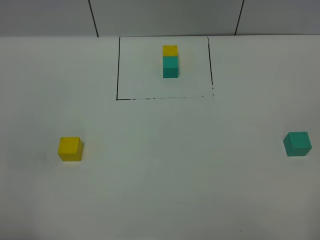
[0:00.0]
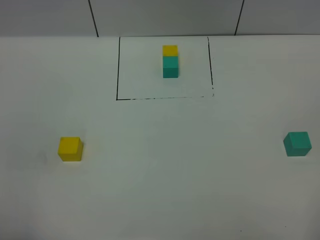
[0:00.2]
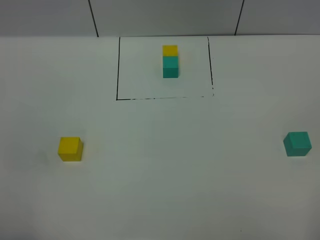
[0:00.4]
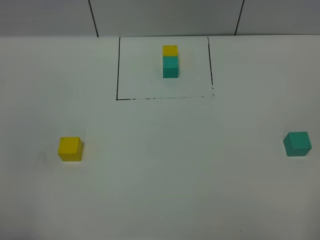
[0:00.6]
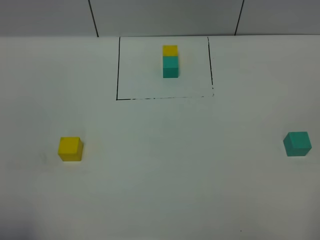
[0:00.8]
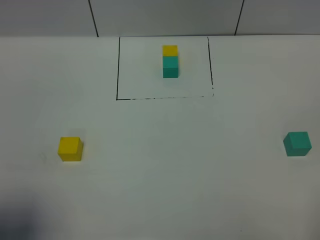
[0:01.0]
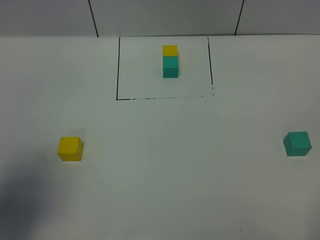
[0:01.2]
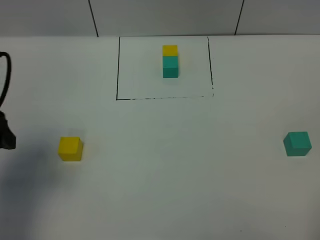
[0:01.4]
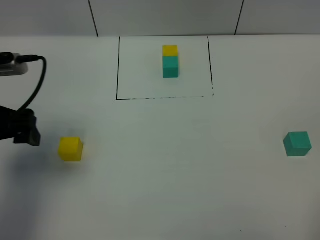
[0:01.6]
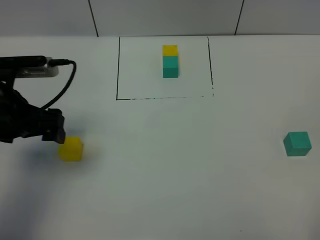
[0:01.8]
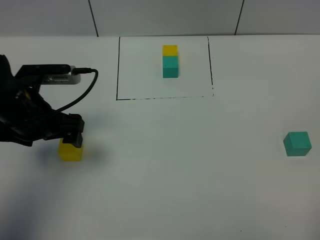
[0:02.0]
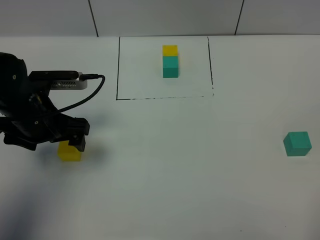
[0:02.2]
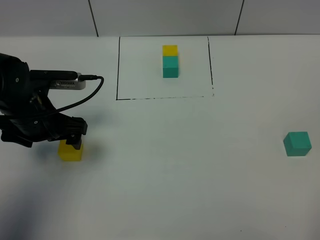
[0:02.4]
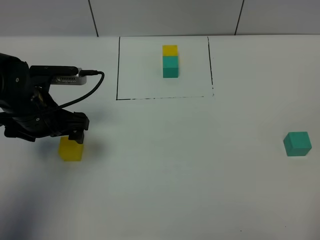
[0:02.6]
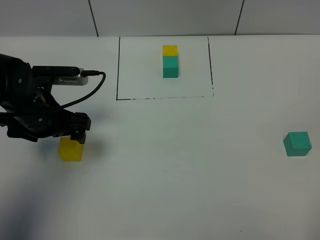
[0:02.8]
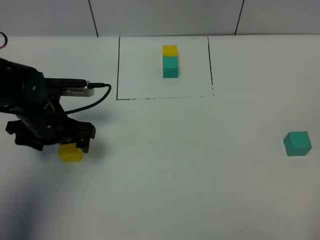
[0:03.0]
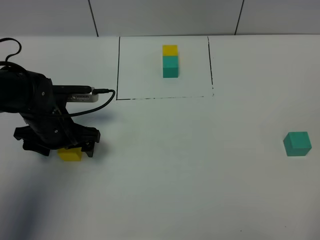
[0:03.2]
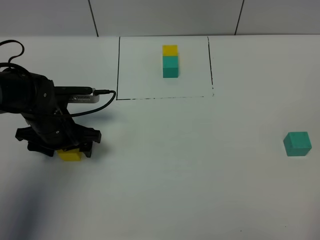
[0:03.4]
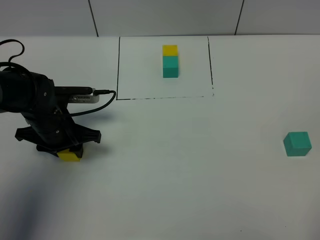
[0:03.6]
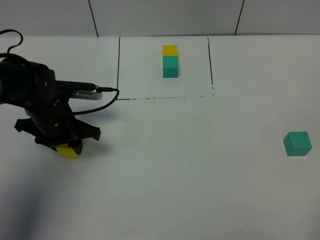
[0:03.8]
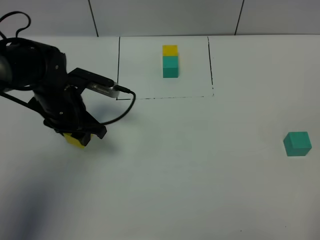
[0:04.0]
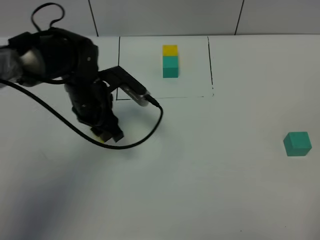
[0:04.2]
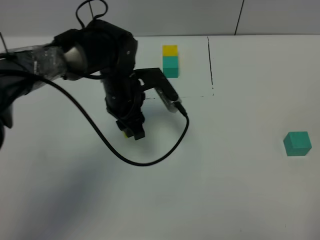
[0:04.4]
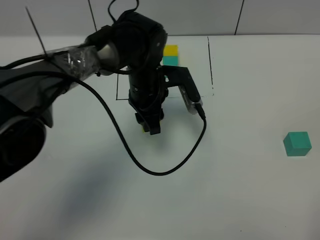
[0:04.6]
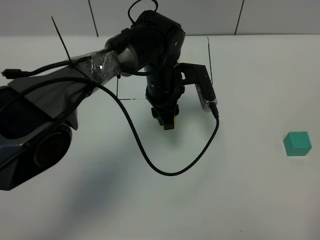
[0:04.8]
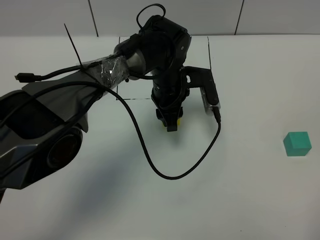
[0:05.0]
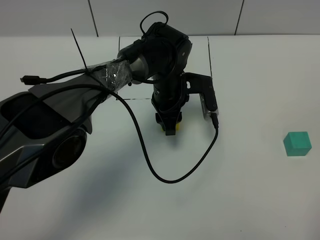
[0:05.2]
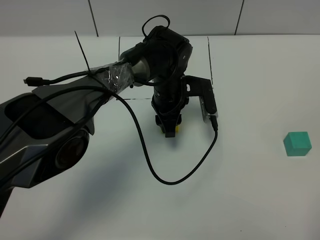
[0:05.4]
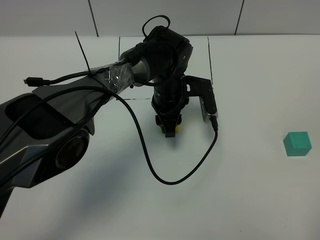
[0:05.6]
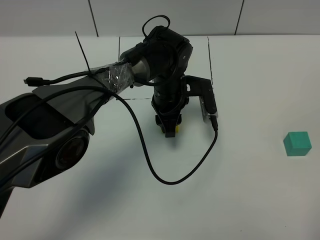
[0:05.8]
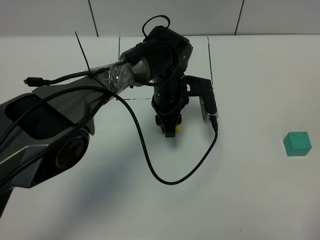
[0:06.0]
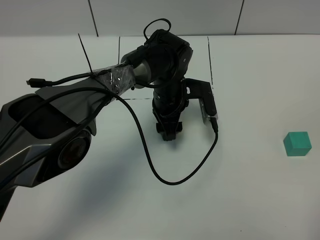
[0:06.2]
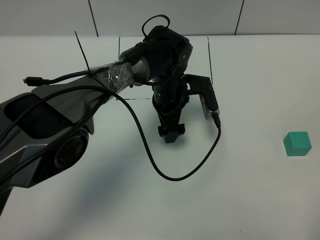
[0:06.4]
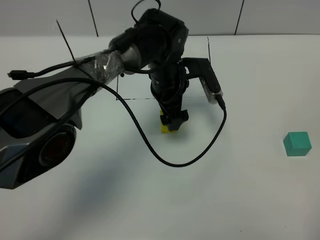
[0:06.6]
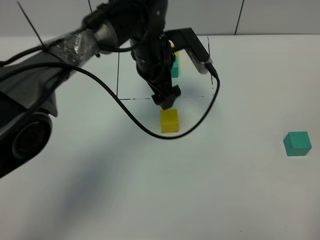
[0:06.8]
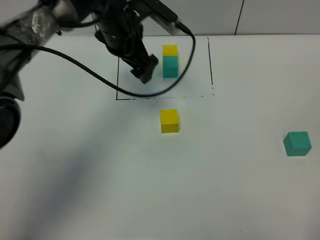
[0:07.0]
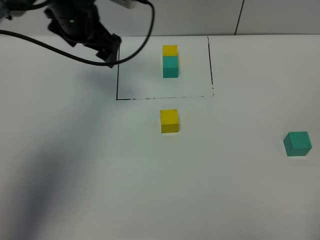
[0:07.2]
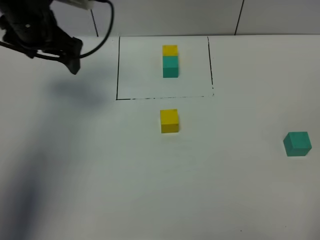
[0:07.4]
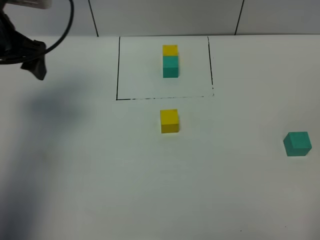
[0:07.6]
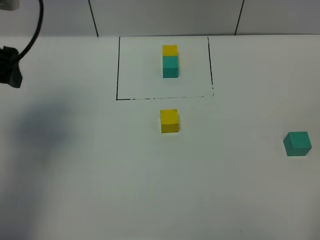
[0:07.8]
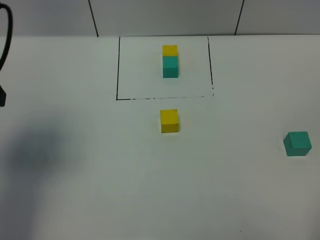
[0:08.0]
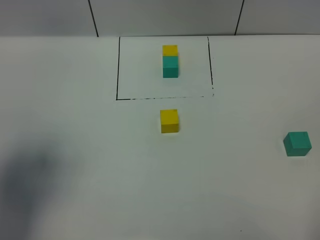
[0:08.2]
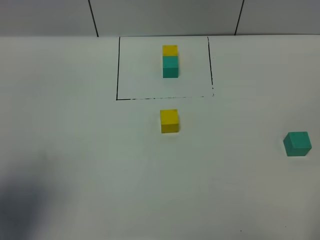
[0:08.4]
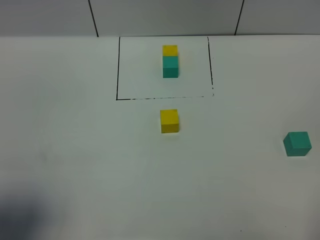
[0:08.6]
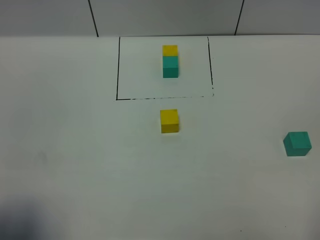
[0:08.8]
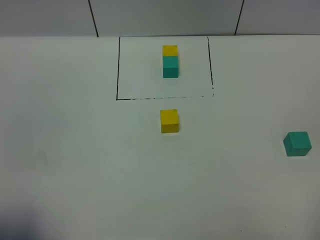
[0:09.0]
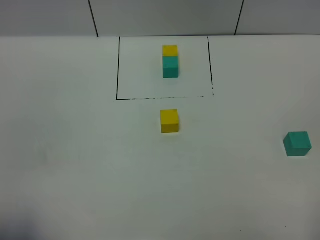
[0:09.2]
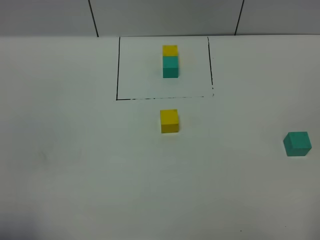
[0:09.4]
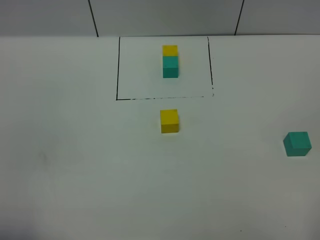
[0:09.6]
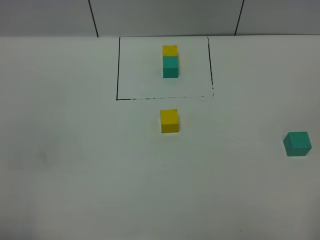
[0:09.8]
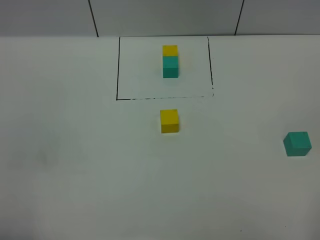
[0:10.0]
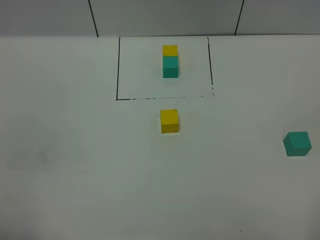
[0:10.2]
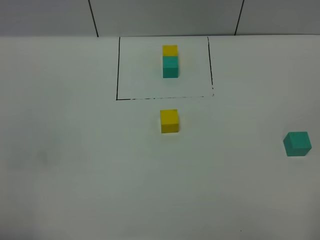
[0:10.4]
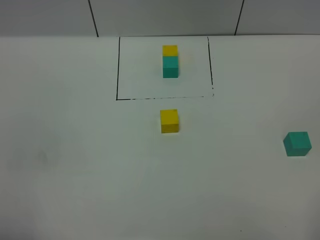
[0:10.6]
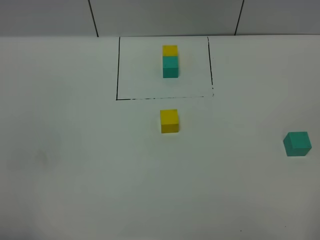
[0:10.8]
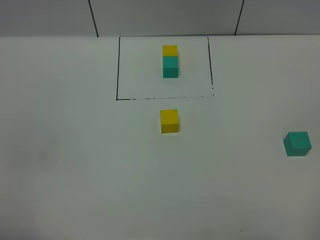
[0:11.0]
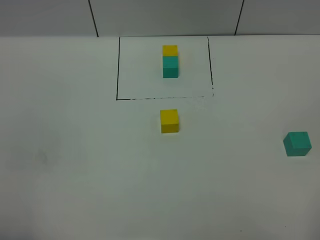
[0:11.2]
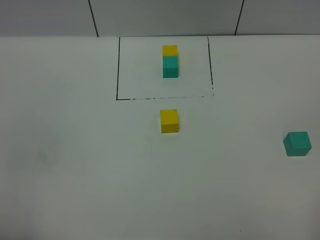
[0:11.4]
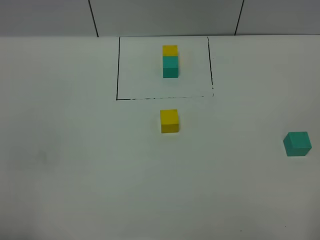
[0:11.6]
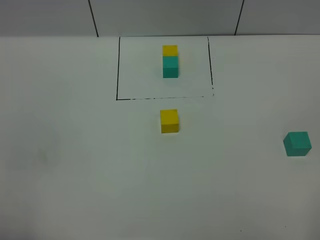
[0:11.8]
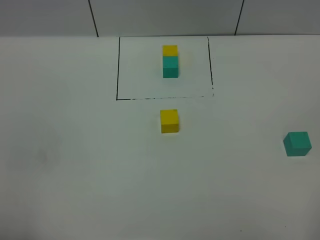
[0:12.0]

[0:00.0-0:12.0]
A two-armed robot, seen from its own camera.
Task of the whole recording: According to the building block template in front, assemble the scattered blocks together.
Step, 0:01.4 to 0:06.6: Put the yellow cube in the center of the table.
0:00.0 to 0:01.6: The left gripper travels forward by approximately 25 cm.
0:01.6 to 0:03.0: The left gripper goes approximately 15 cm downward, forward and to the right.
0:03.0 to 0:04.4: The left gripper is displaced to the right by roughly 15 cm, and closes up.
0:04.4 to 0:06.0: The left gripper shifts approximately 10 cm to the right.
0:06.0 to 0:07.6: The left gripper shifts about 35 cm to the left and upward, and opens up.
0:07.6 to 0:09.0: The left gripper shifts approximately 30 cm backward.
0:10.4 to 0:12.0: The two grippers keep their place.

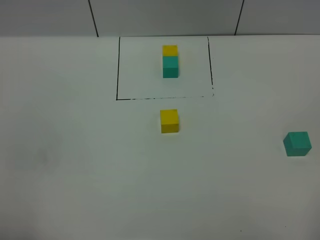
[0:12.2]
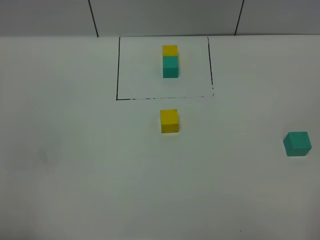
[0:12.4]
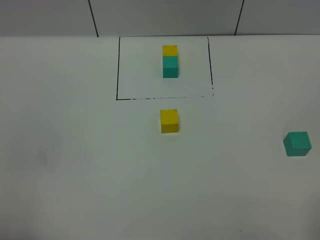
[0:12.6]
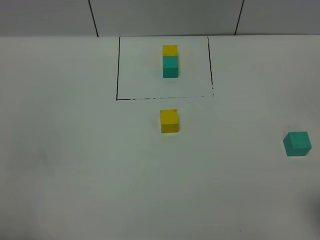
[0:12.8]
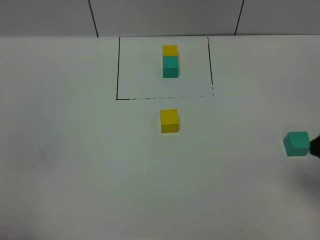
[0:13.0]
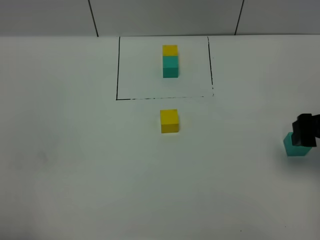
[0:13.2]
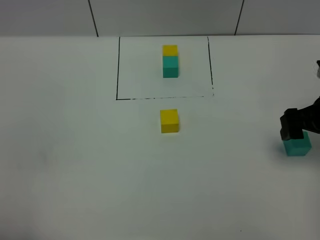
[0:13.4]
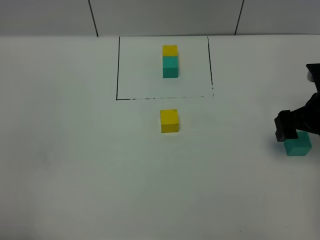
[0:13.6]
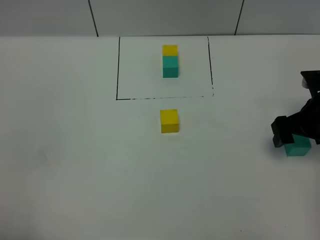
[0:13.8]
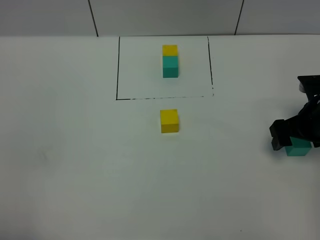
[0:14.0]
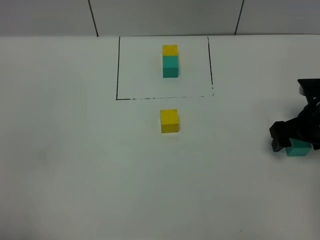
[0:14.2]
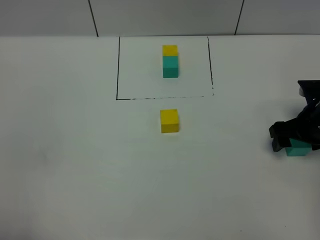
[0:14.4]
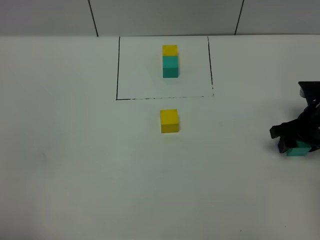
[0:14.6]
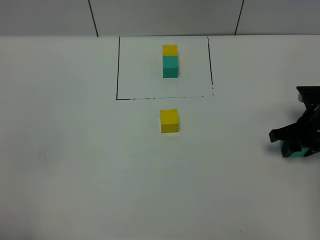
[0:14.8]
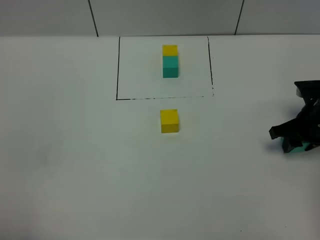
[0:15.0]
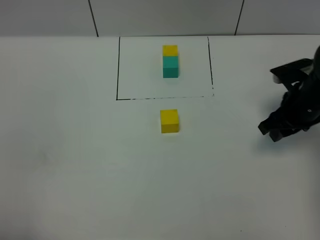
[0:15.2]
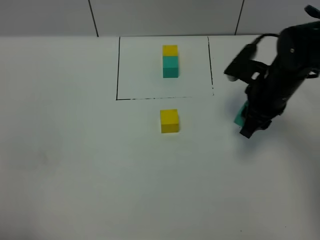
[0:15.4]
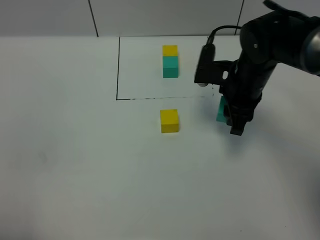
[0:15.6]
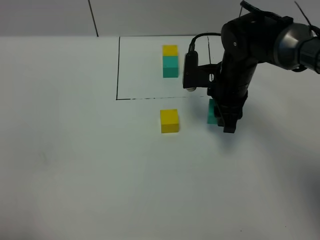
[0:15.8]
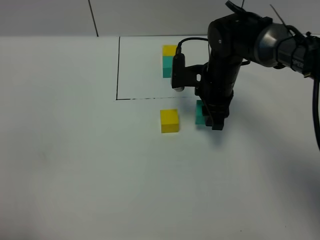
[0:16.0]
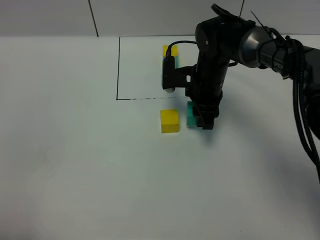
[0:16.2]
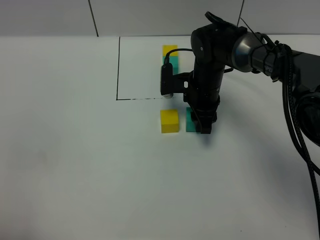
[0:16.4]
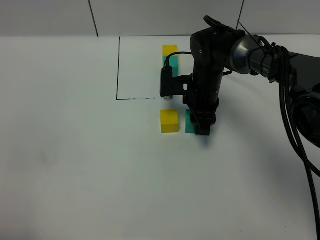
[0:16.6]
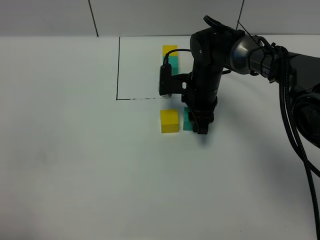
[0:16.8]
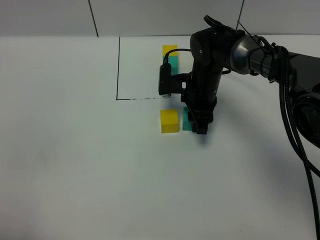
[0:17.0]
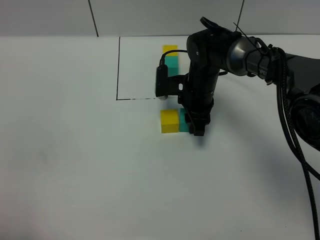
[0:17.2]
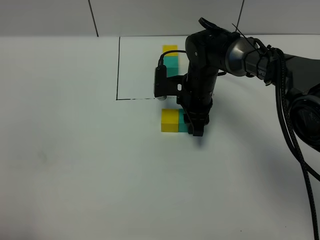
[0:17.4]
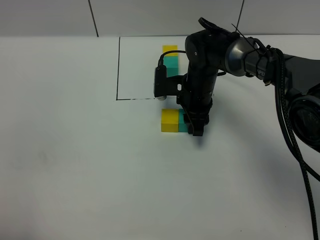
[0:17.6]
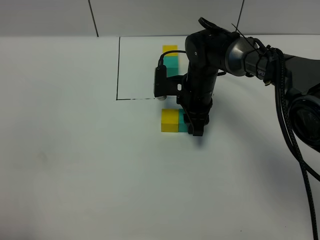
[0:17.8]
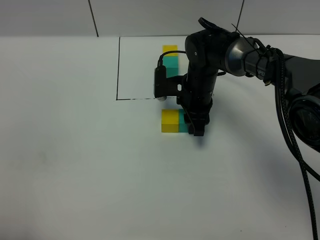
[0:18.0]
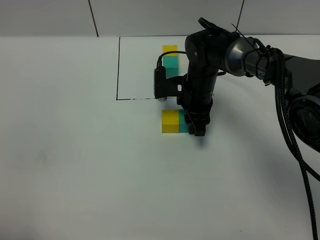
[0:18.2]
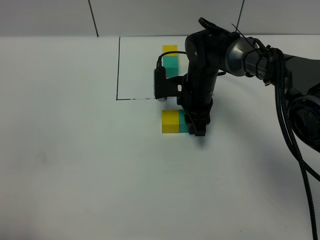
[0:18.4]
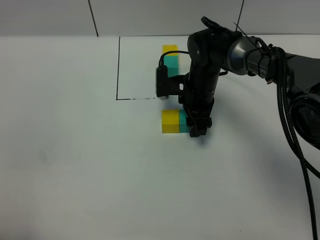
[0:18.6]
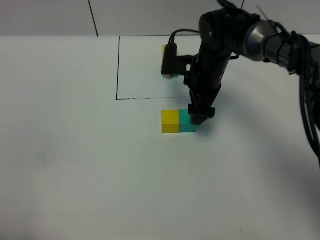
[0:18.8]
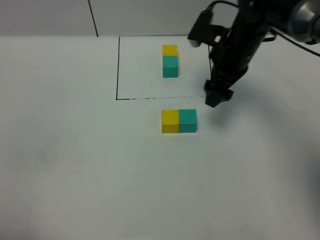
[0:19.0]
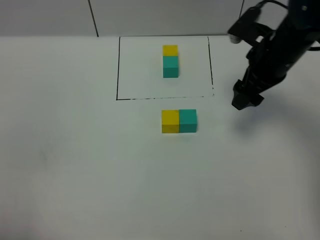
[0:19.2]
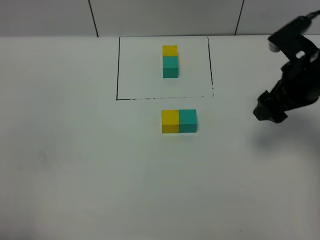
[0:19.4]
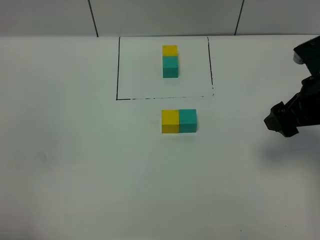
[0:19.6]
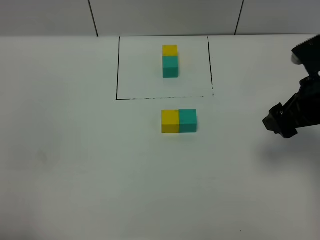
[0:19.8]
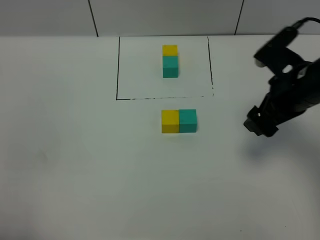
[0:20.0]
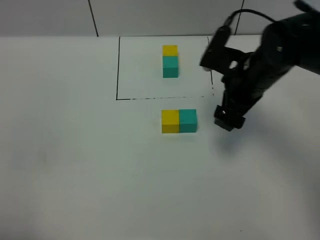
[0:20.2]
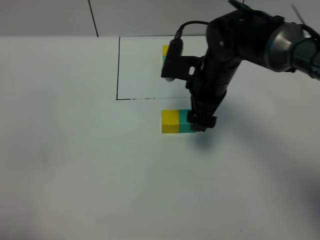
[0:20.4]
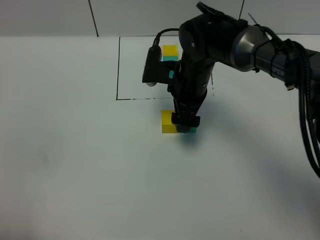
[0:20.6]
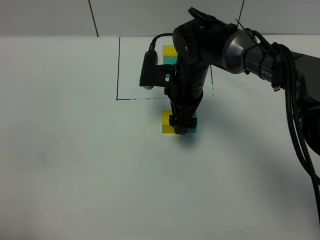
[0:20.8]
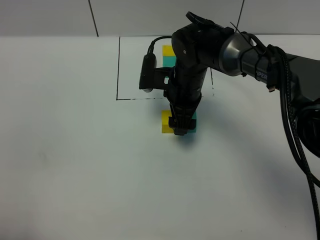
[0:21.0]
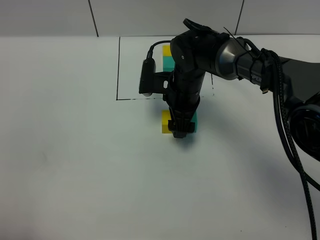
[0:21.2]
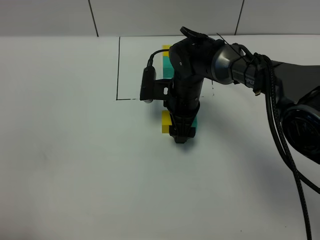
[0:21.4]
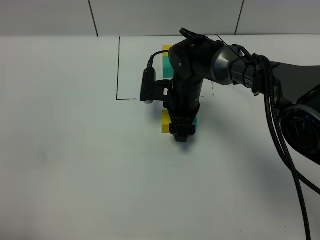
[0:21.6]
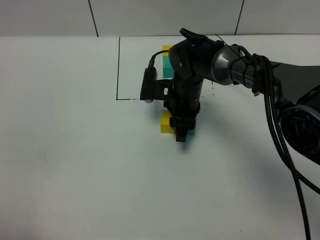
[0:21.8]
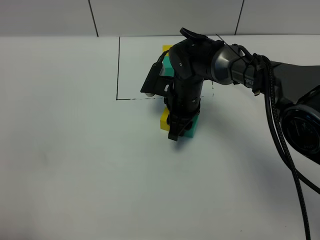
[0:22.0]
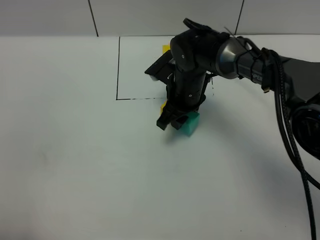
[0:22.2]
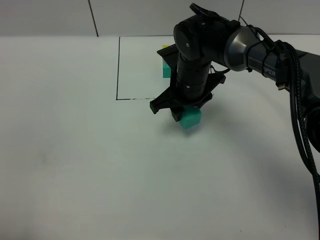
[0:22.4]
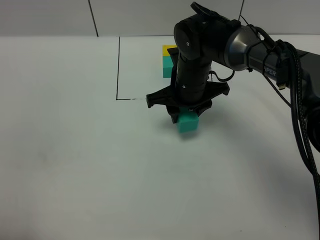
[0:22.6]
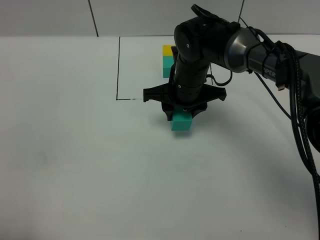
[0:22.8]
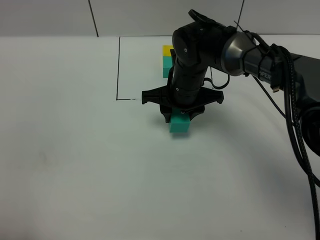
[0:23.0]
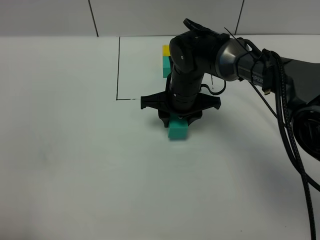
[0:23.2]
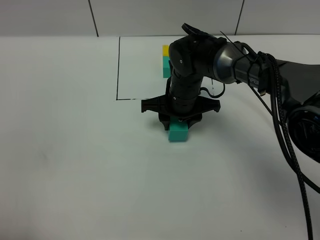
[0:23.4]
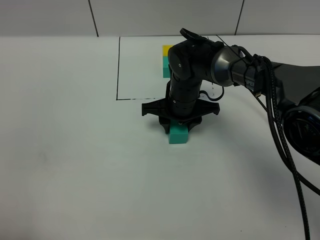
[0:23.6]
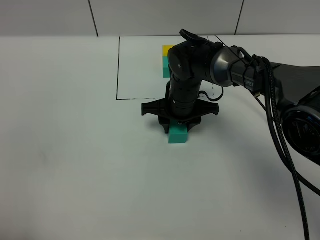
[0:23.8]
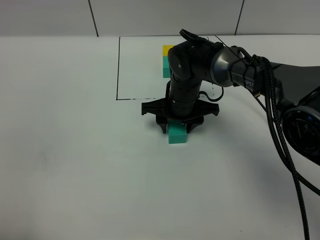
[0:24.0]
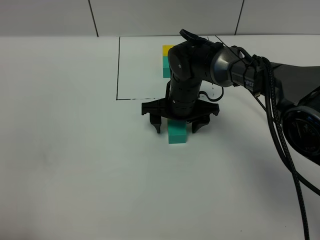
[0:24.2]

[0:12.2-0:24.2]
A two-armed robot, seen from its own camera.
Task of the whole recording: According to the building block template in front, assemble the scattered blocks together.
Step, 0:12.2 to 0:18.6: Put the green cube on the right of the yellow cube.
0:12.2 to 0:13.8: The right gripper heads forward, covering some 30 cm.
0:13.8 to 0:15.2: The right gripper moves approximately 5 cm, and closes up.
0:15.2 to 0:16.6: The right gripper is displaced to the left and forward by approximately 20 cm.
0:16.6 to 0:18.2: Both grippers stay about where they are.
0:18.2 to 0:19.8: The right gripper is displaced to the right, backward and upward by approximately 25 cm, and opens its fingers.
0:19.8 to 0:21.2: The right gripper moves to the left, forward and downward, roughly 25 cm.
0:21.2 to 0:22.6: The right gripper closes up.
0:22.6 to 0:24.2: The right gripper travels downward by some 5 cm, and opens its fingers.
